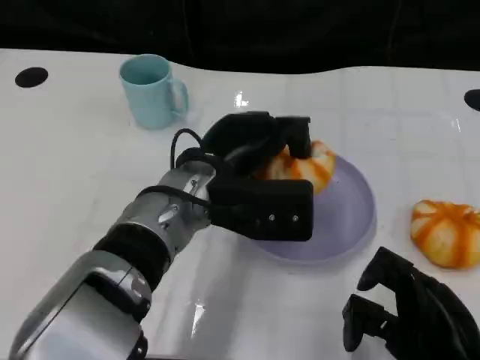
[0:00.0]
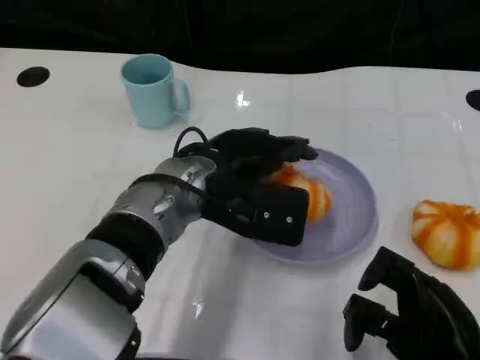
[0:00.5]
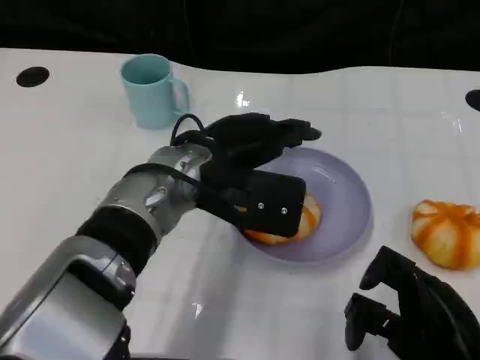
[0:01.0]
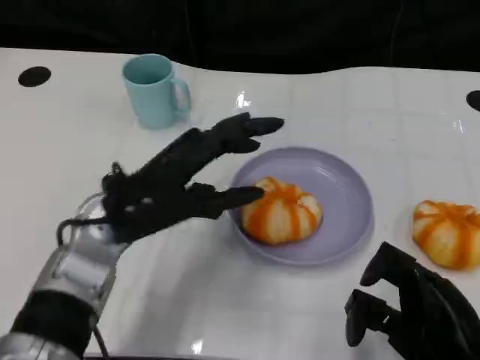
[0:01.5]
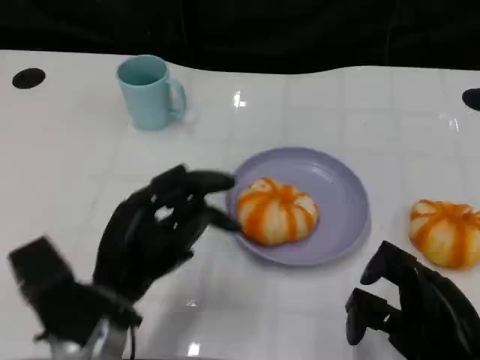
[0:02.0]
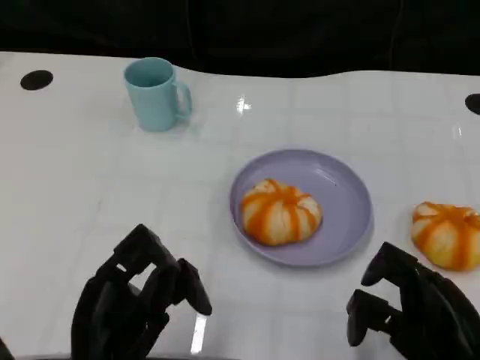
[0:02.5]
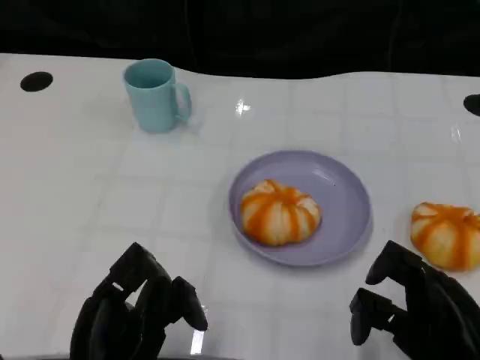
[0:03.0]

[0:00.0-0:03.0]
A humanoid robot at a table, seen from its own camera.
Task of the whole recording: Grasp the bread from the table and place it into the plate.
0:00.0 to 0:01.5: The left hand is displaced to the left by roughly 10 cm.
0:01.5 to 0:03.0: The left hand goes about 15 cm backward and downward.

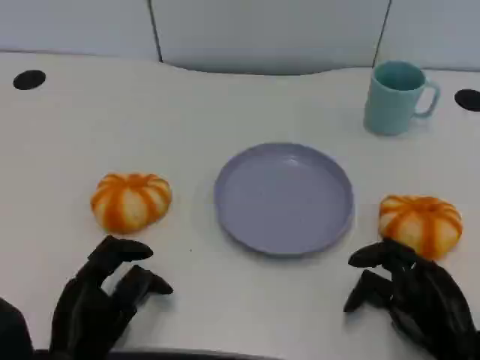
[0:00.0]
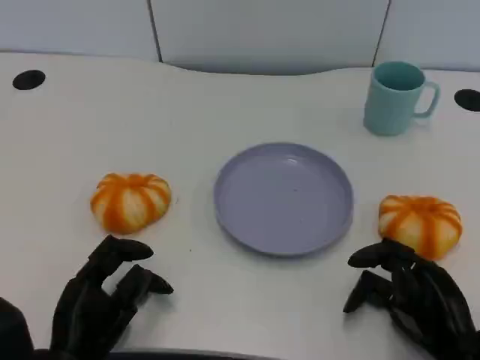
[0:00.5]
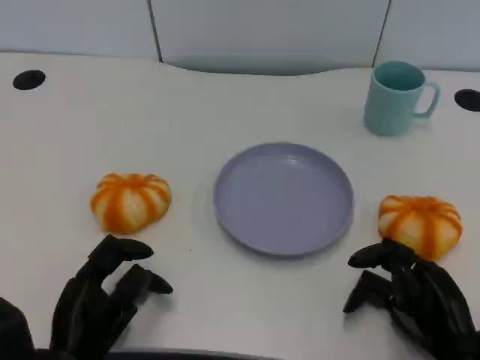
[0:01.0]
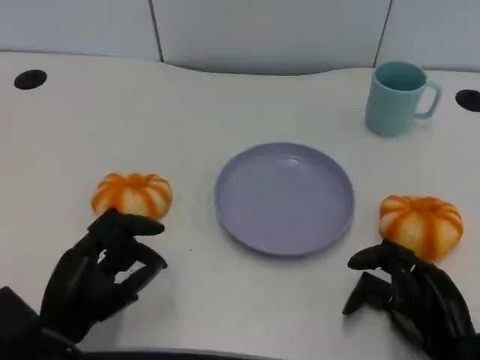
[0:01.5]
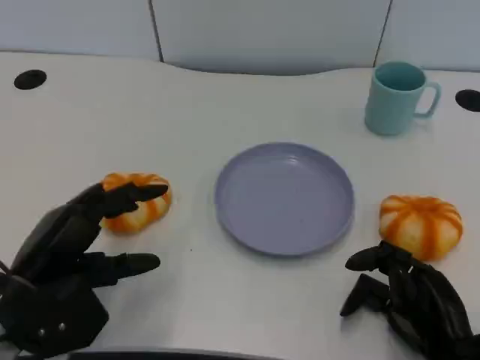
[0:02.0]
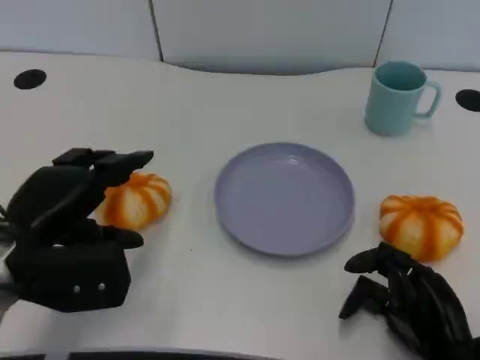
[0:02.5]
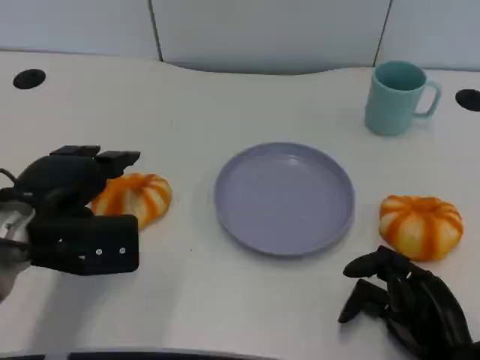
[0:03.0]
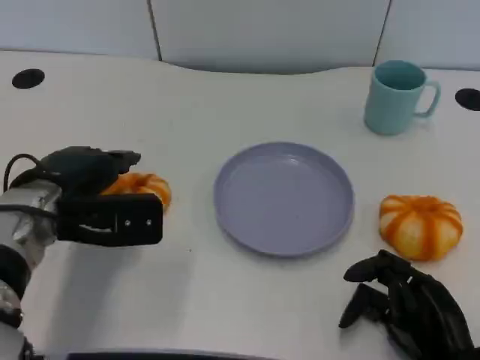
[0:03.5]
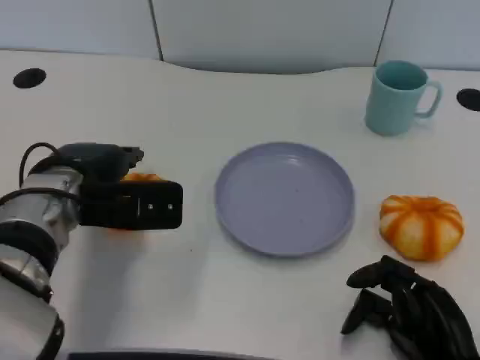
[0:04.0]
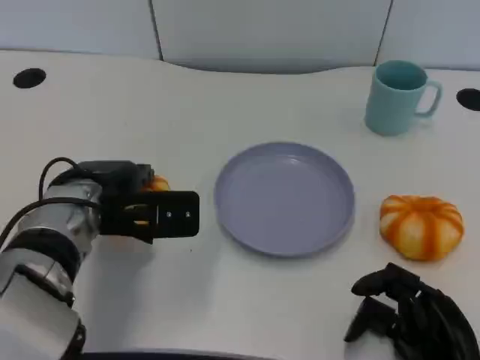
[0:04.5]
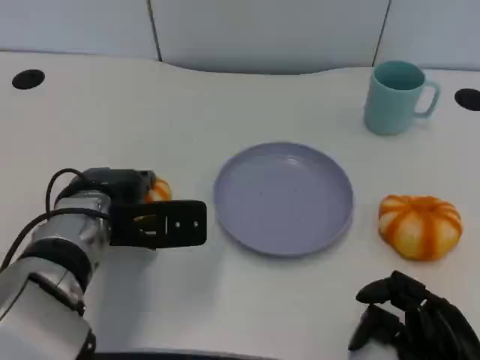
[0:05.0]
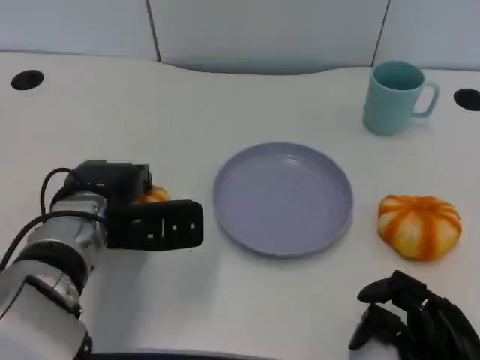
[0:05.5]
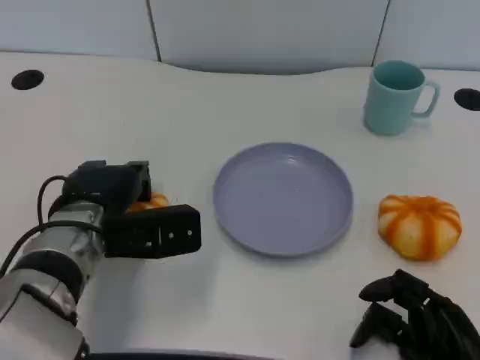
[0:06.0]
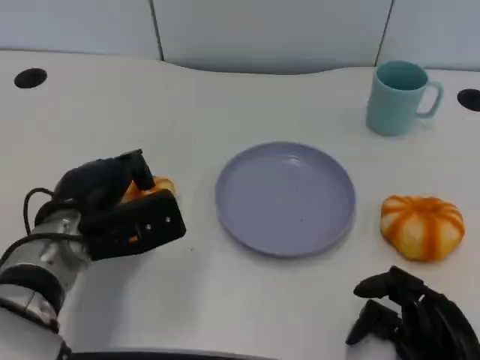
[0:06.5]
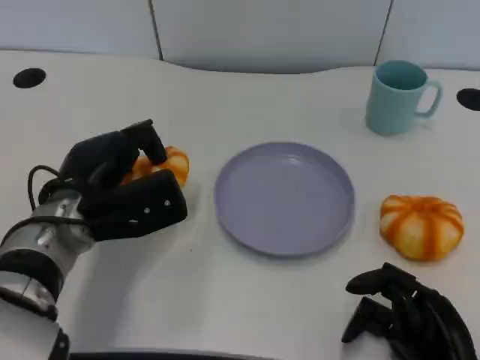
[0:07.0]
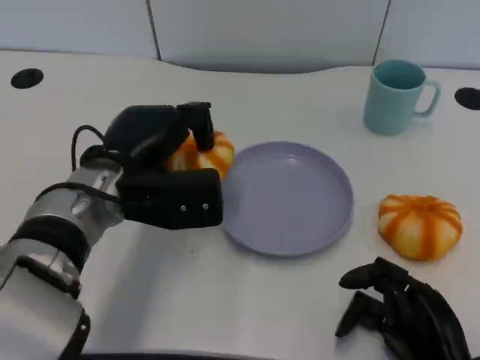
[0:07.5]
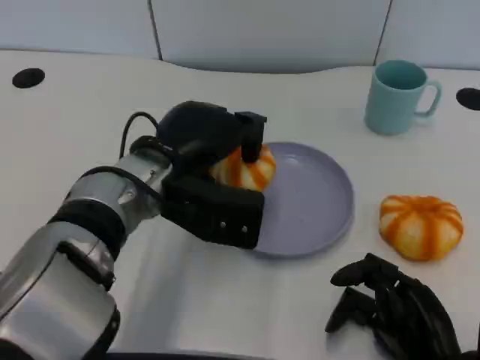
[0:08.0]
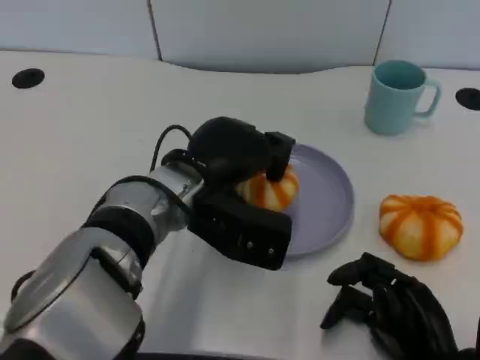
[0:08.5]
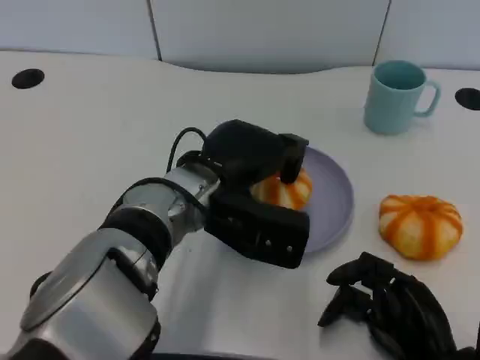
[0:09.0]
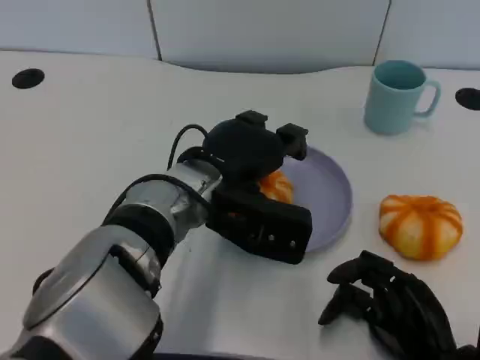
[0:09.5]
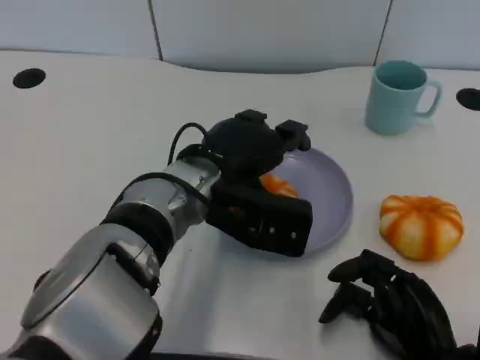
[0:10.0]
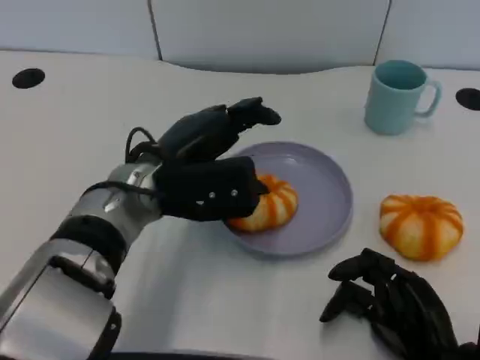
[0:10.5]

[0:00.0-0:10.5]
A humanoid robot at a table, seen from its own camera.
Task of the whole recording: Grasp the bread from the table and place it into the plate.
0:00.0 to 0:02.0: The left hand travels upward by approximately 10 cm.
0:02.0 to 0:04.0: The left hand moves forward and to the right, approximately 10 cm.
0:06.5 to 0:08.5: The left hand is displaced to the right by about 10 cm.

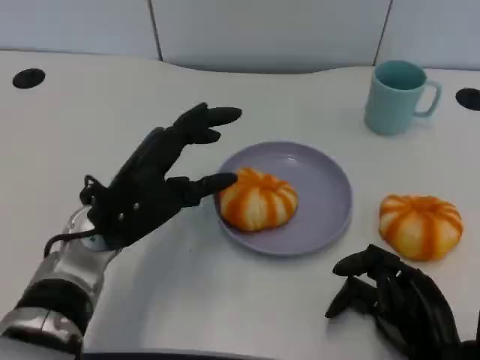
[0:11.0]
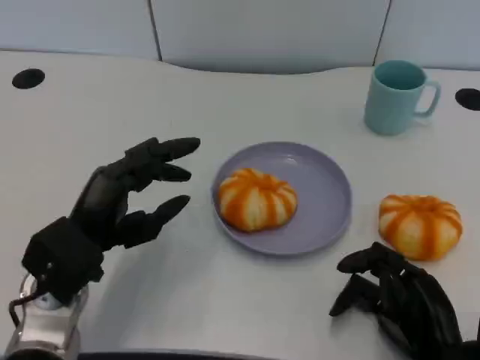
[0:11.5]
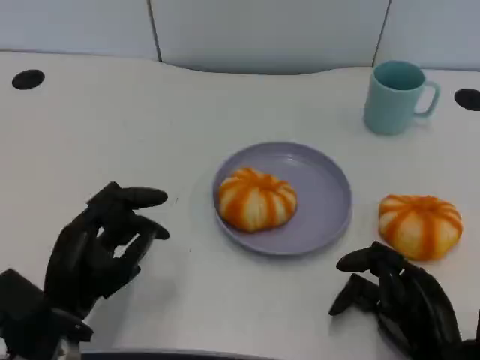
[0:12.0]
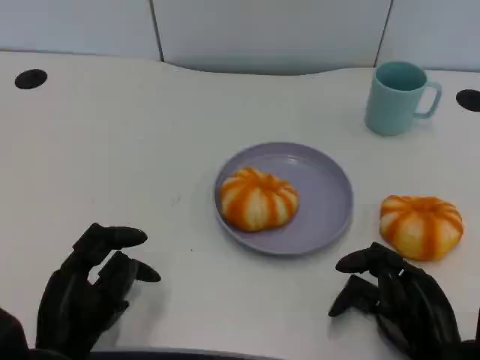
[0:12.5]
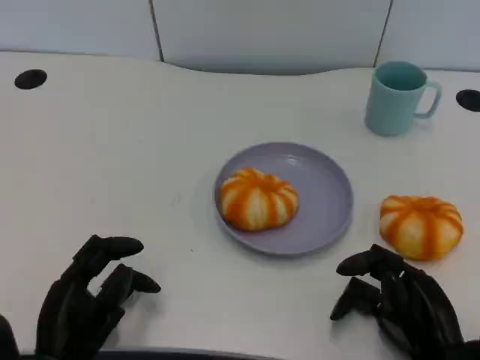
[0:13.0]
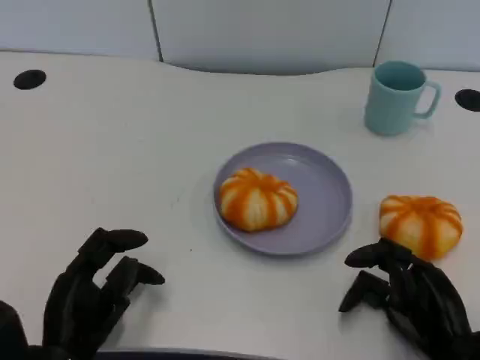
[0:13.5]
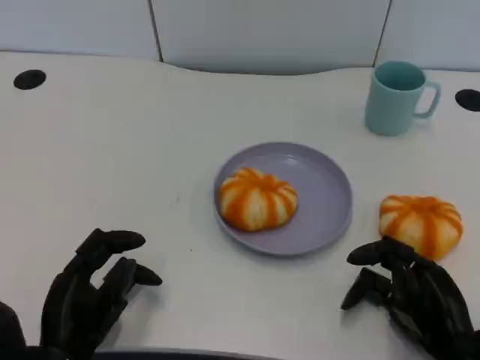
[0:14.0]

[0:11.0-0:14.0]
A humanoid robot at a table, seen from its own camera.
Task of the whole recording: Grasp the bread from the table and place it into the plate.
0:11.0 to 0:12.5: The left hand heads backward, downward and to the left, covering some 15 cm.
0:12.5 to 0:14.0: The hands move only a little.

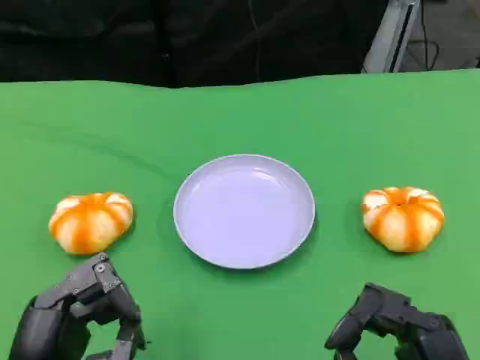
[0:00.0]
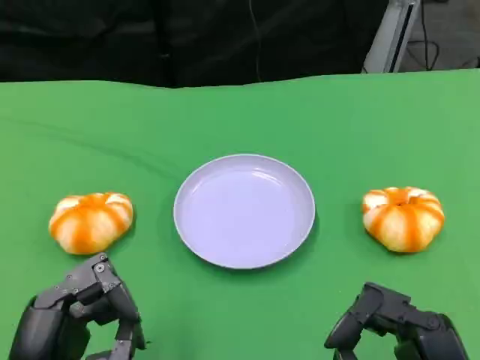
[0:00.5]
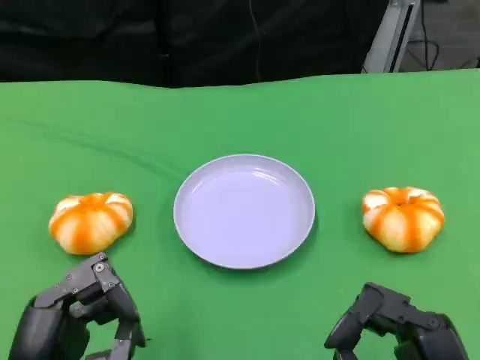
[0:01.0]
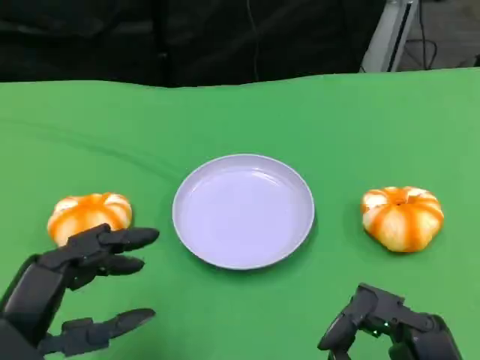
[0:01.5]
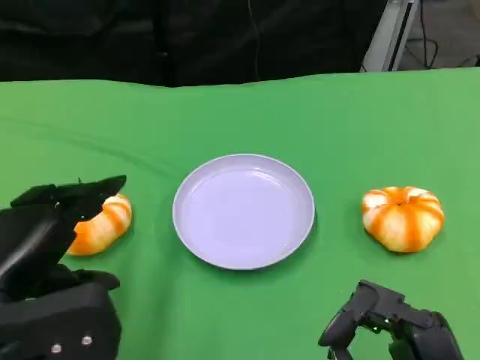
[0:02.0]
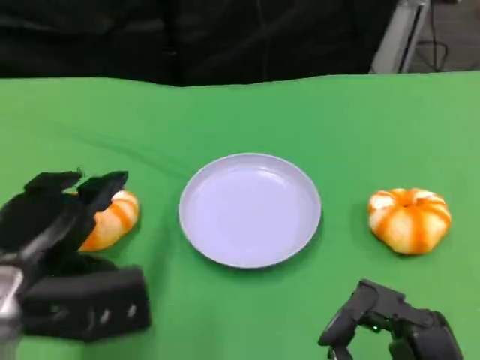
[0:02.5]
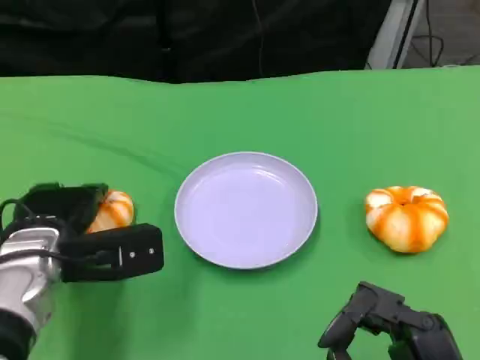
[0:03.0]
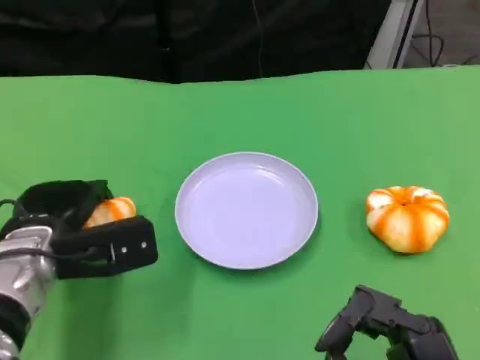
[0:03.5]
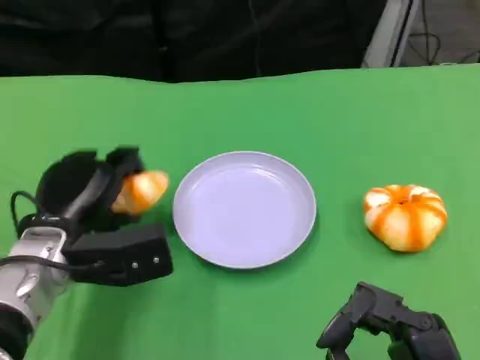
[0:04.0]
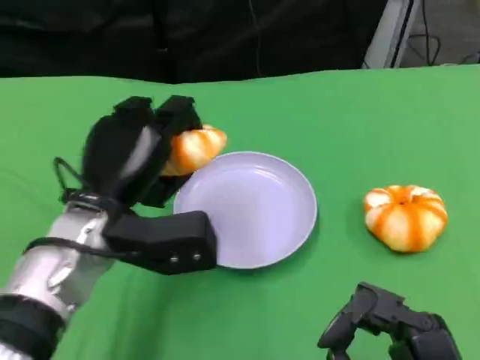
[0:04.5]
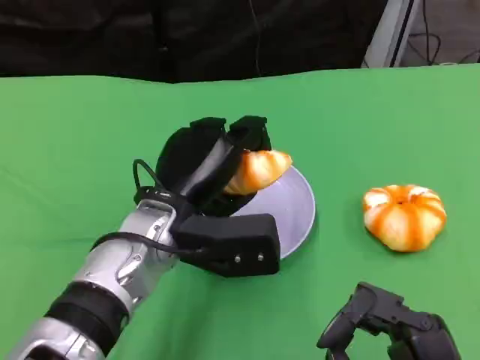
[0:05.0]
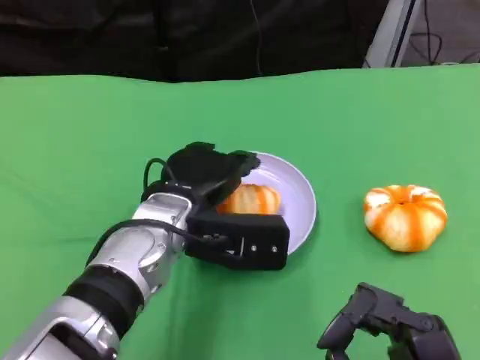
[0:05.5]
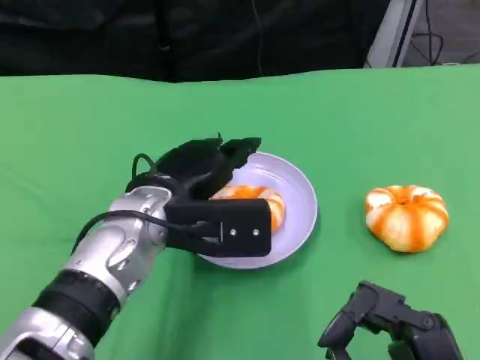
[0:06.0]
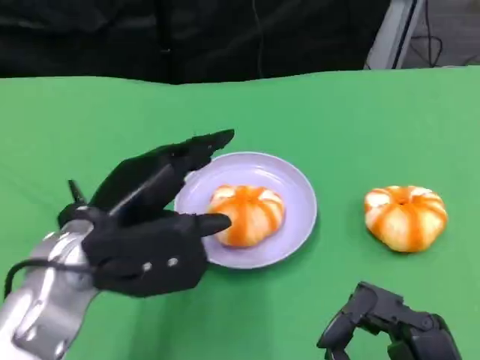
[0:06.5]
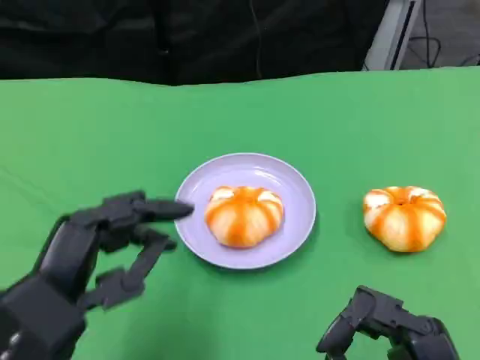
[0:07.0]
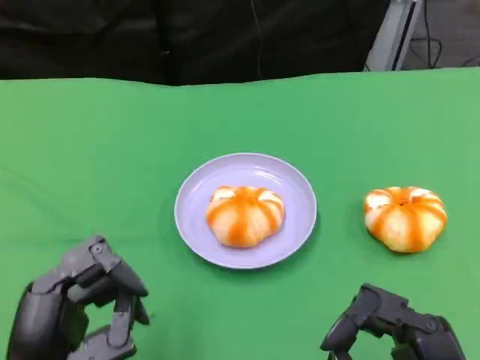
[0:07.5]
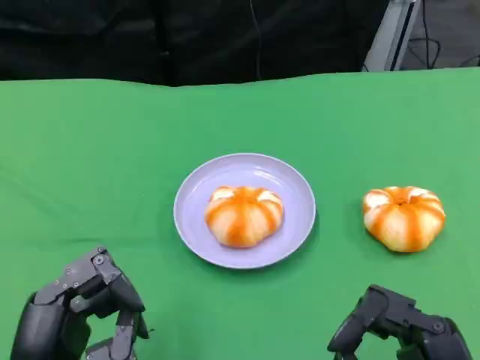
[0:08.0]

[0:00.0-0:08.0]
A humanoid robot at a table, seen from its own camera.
Task of the whole recording: Grasp the bread from the table and place it into the plate.
0:00.0 to 0:02.0: The left hand shifts some 10 cm upward and forward.
0:02.0 to 0:04.0: The left hand travels forward and downward by roughly 10 cm.
0:04.0 to 0:06.0: The left hand heads to the right, covering approximately 10 cm.
0:06.0 to 0:08.0: The left hand is displaced backward and to the left by approximately 20 cm.
